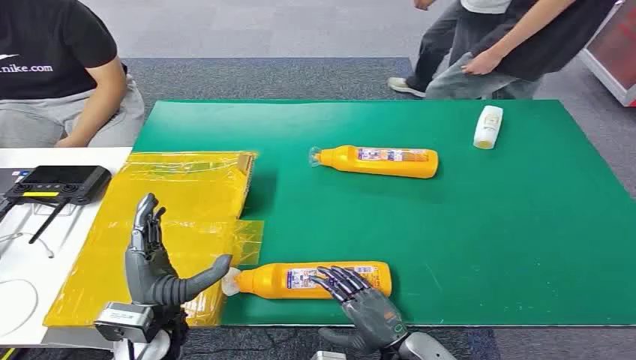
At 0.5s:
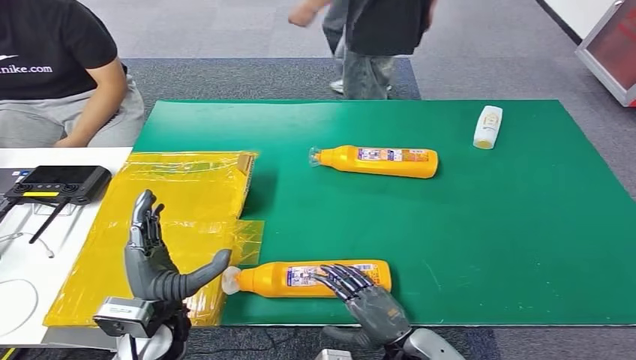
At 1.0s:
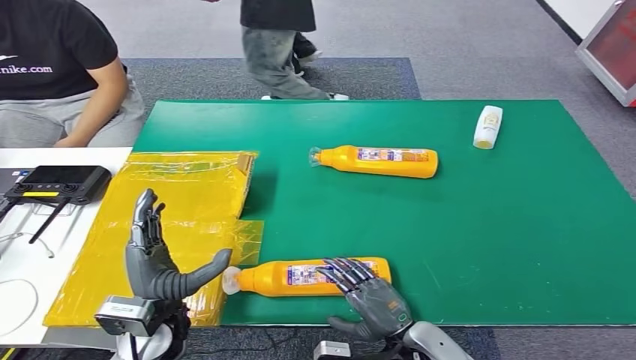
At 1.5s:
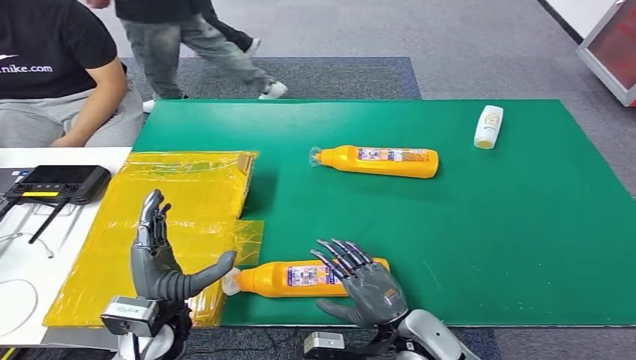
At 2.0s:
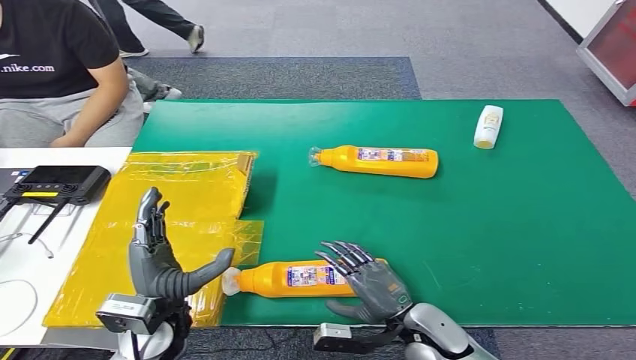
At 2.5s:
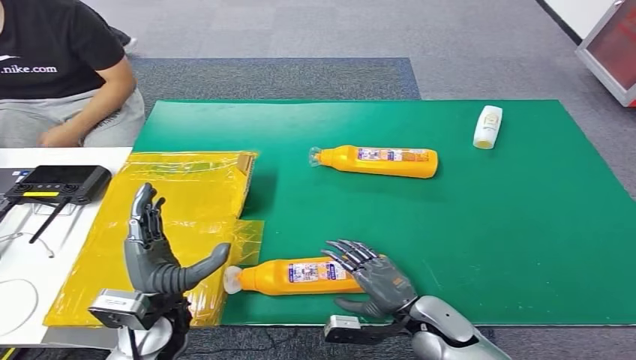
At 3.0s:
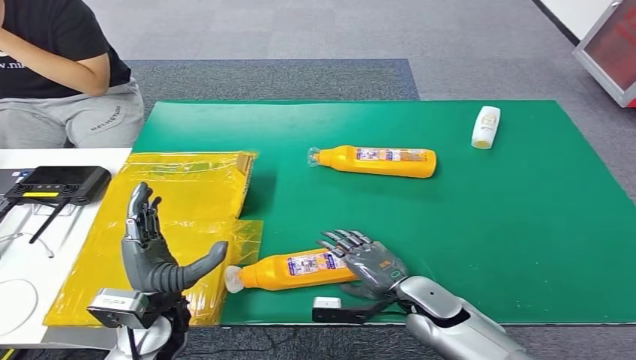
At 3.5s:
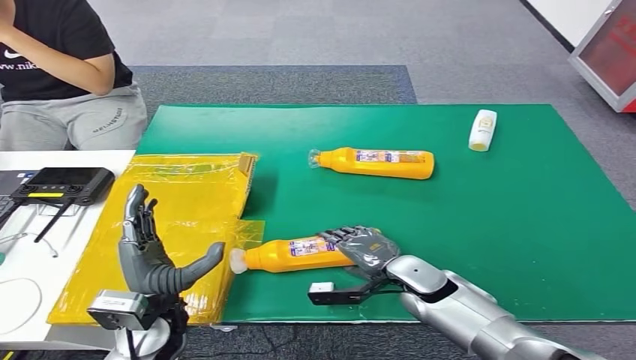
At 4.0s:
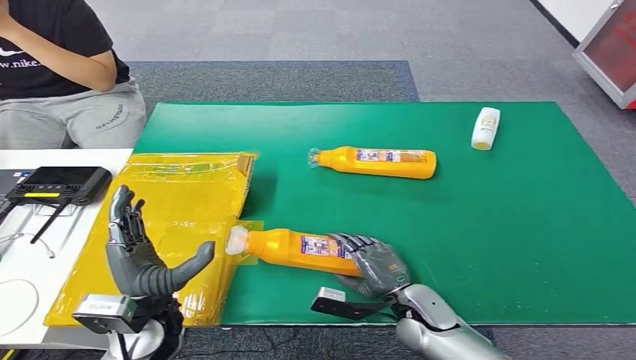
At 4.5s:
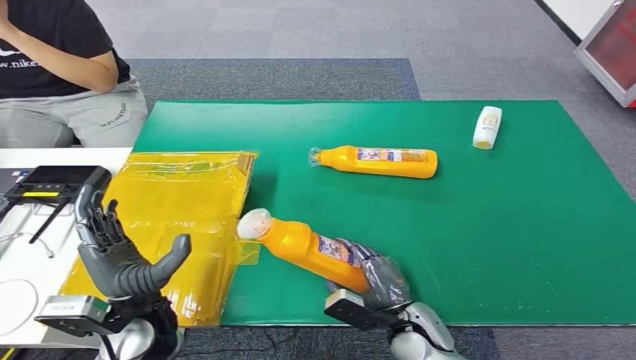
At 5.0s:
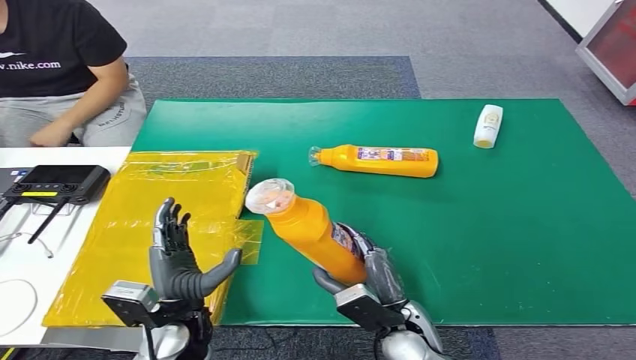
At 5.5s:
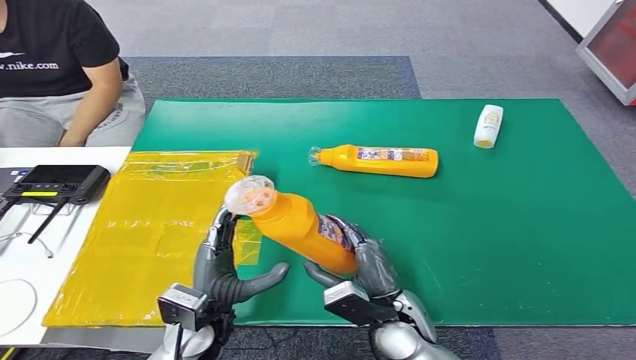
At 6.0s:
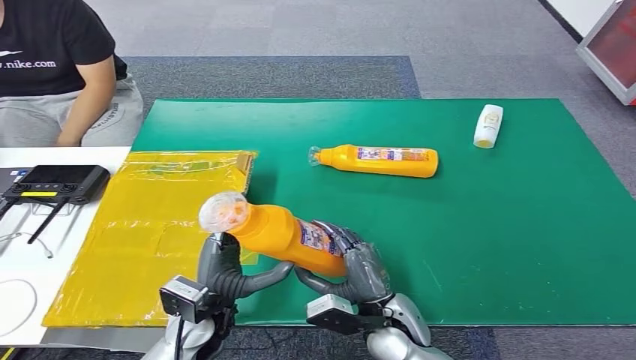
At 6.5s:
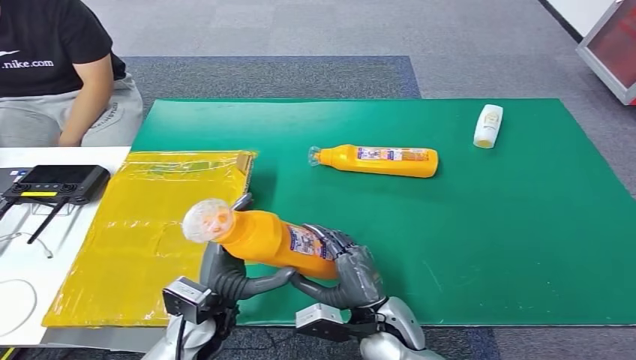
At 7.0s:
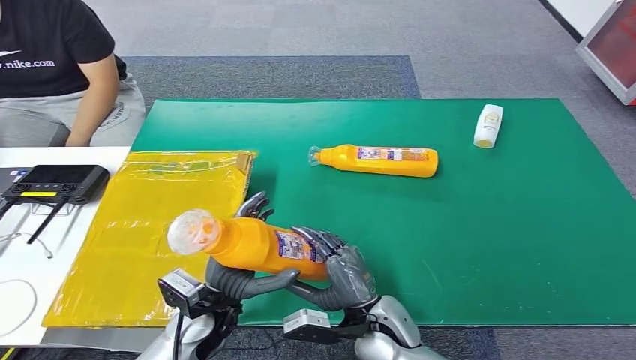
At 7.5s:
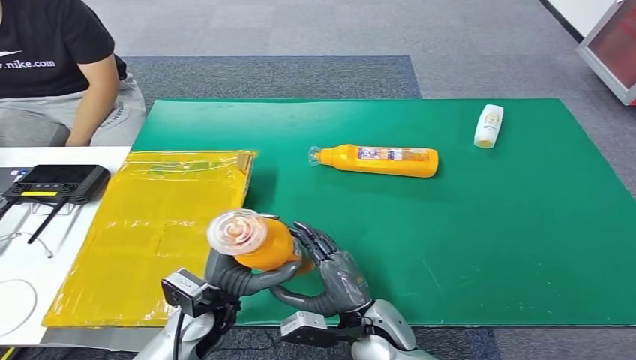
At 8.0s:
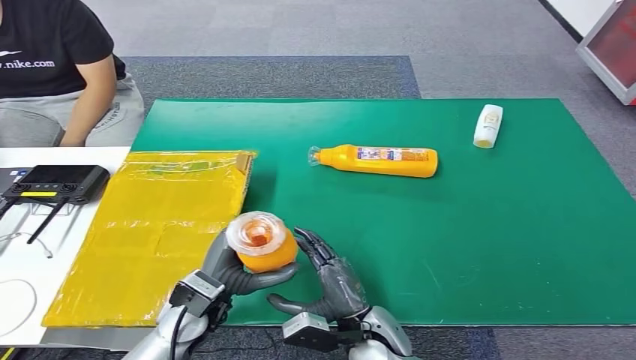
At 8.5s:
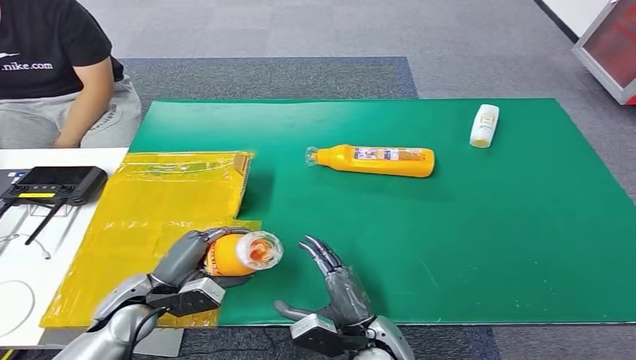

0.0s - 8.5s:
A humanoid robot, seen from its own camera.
Step, 0.0s - 5.5s: Pick up the bottle from the table.
Step, 6.0s - 8.5s: Turn the bottle to the front side.
6.5s - 8.5s: The left hand travels to the left by approximately 10 cm.
